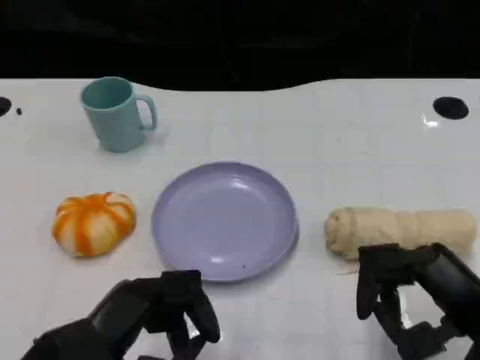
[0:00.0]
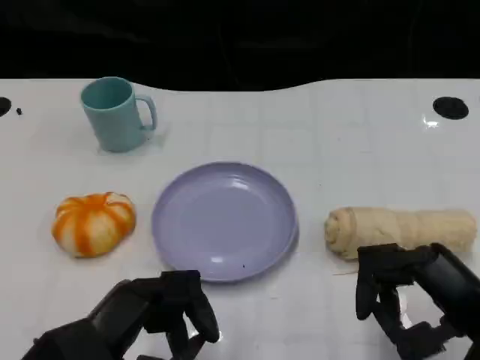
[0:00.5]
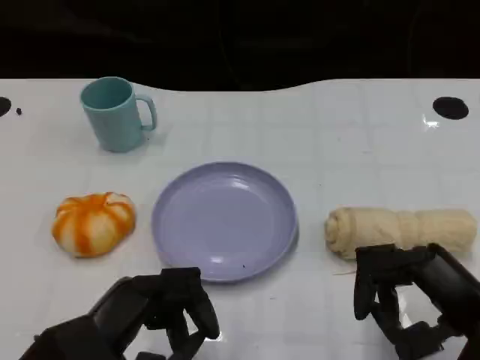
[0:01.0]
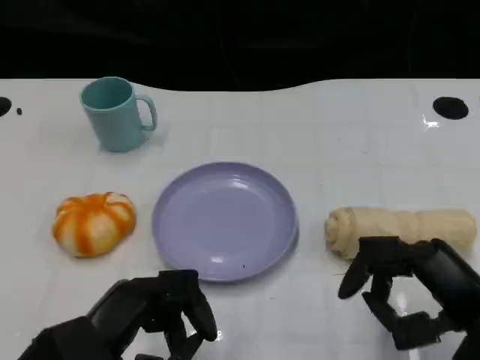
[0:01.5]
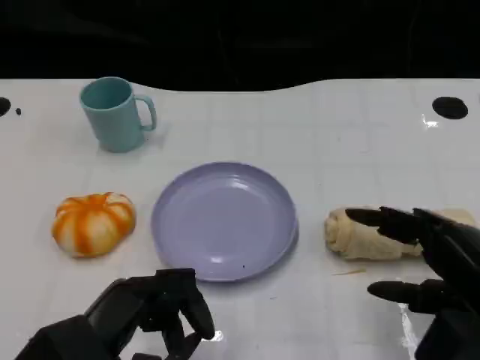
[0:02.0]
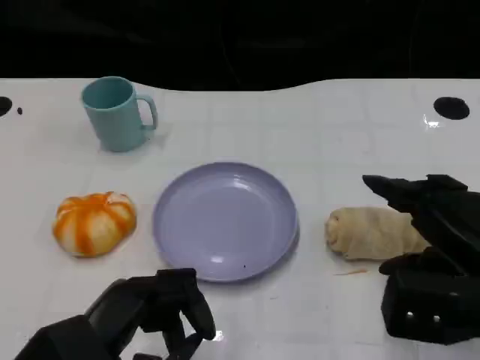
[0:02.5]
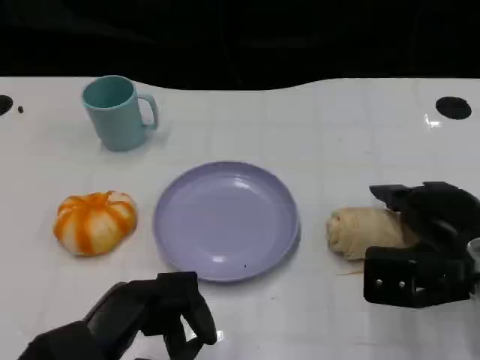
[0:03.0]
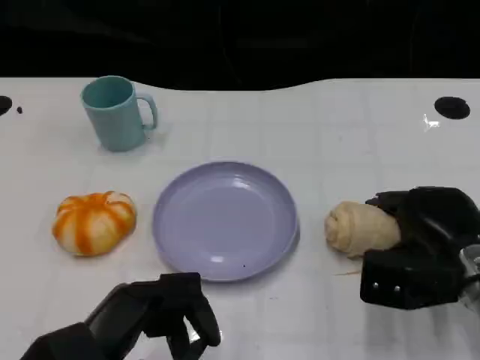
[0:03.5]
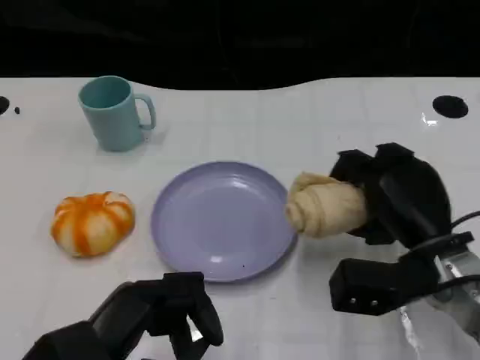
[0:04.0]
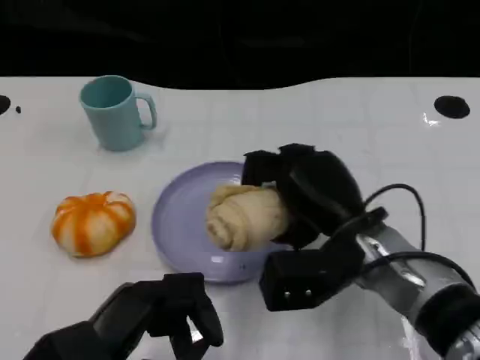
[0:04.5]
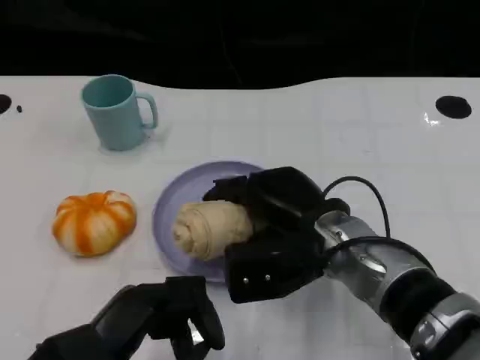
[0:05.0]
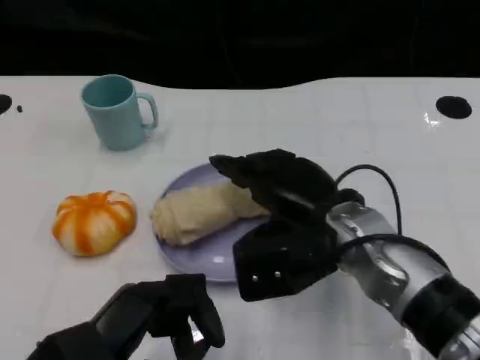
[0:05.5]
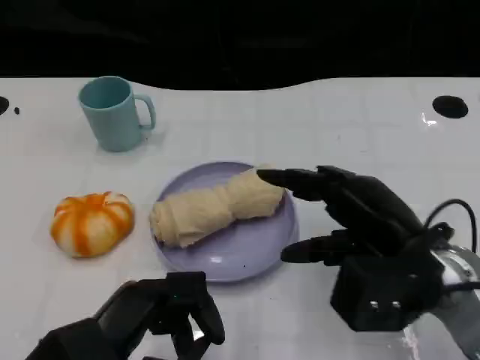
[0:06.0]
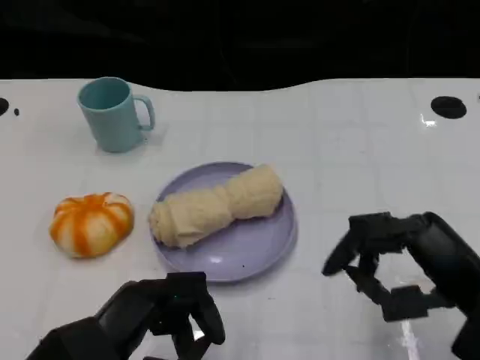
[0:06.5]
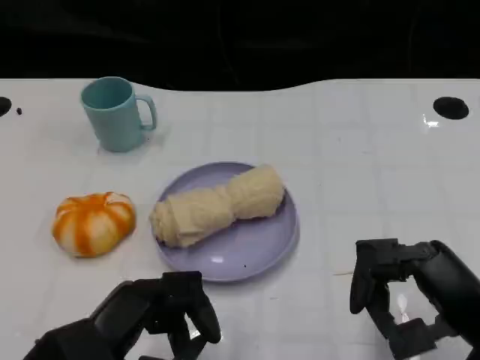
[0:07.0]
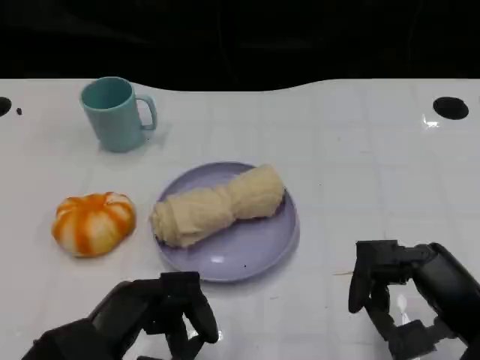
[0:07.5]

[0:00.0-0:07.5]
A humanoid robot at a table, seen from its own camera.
Task of the whole recording: Grasp the towel on the left side of the plate with the left hand and place it into the plate.
2.0 to 4.0 s: The right hand shifts approximately 10 cm forward and to the left.
4.0 to 5.5 s: The right hand is displaced to the left by about 10 cm.
5.5 to 7.5 s: The right hand shifts roughly 15 cm to the right and backward.

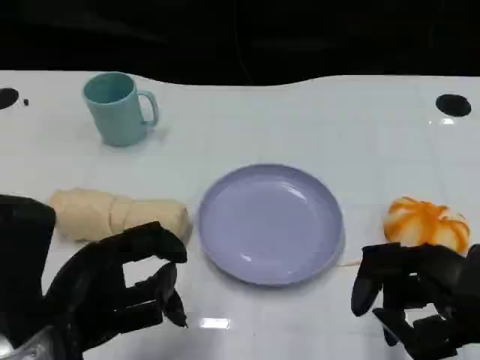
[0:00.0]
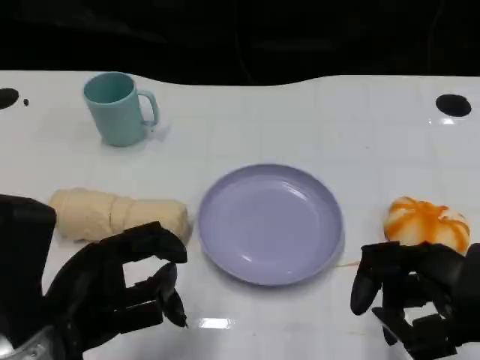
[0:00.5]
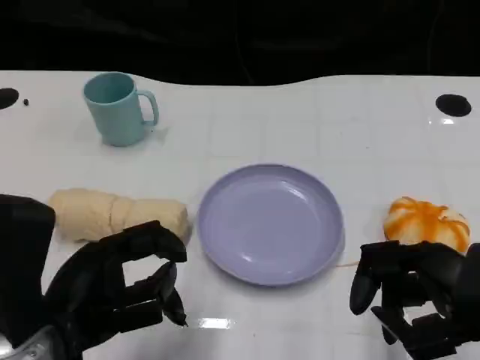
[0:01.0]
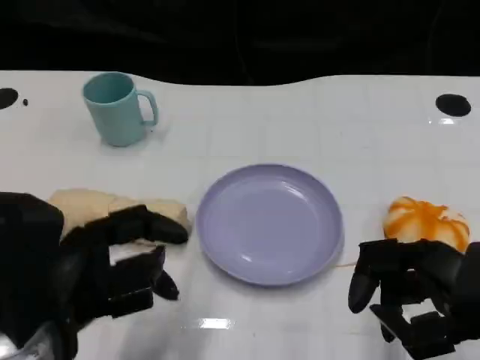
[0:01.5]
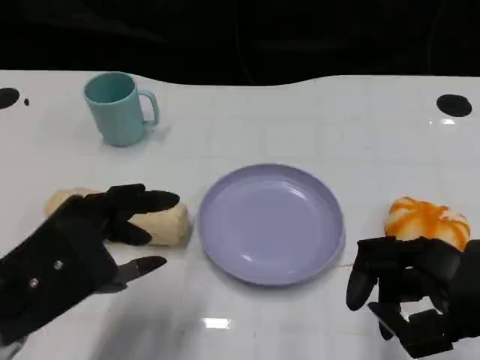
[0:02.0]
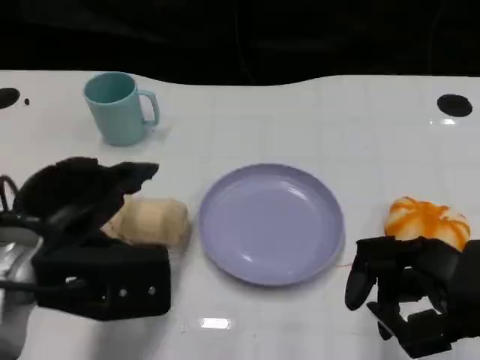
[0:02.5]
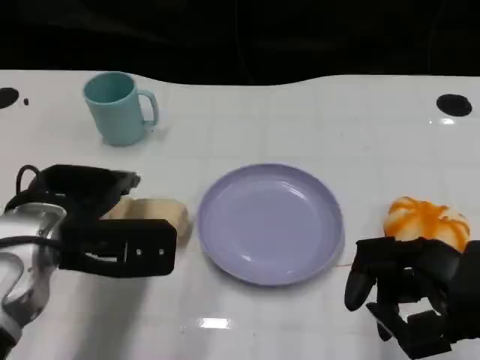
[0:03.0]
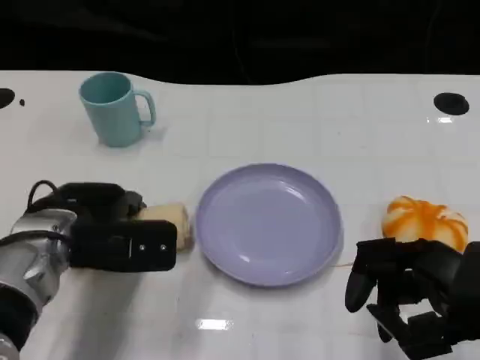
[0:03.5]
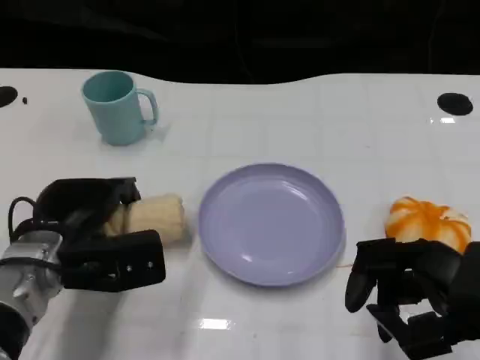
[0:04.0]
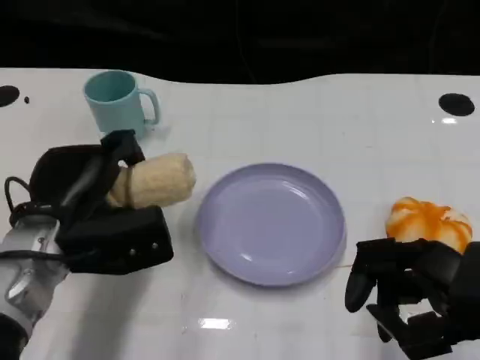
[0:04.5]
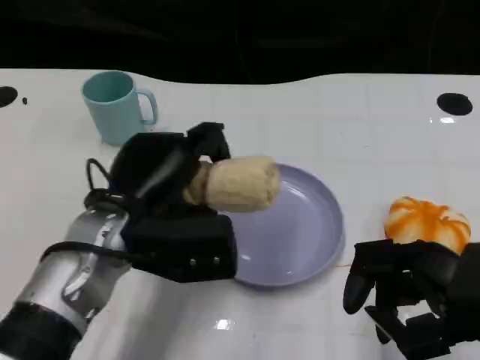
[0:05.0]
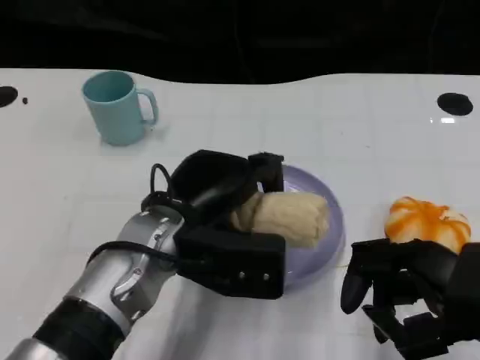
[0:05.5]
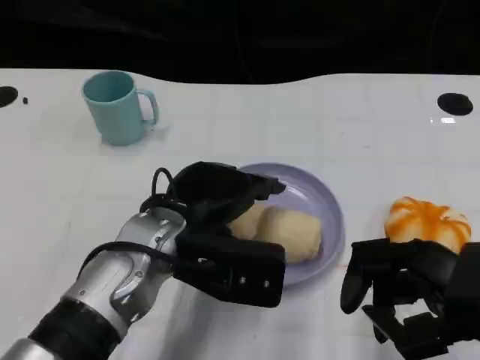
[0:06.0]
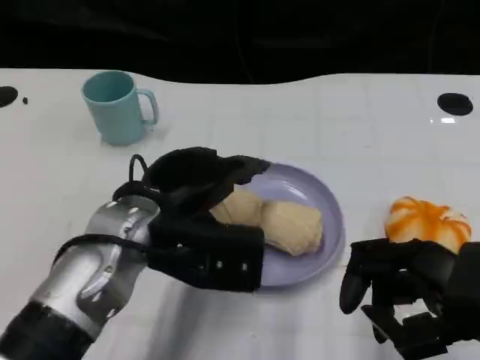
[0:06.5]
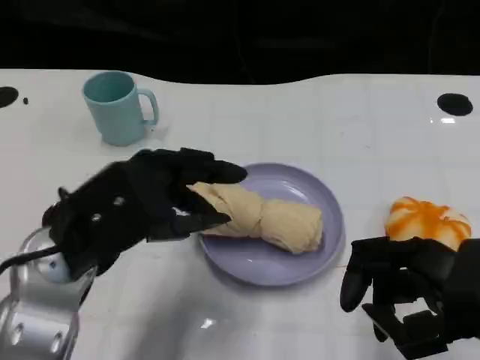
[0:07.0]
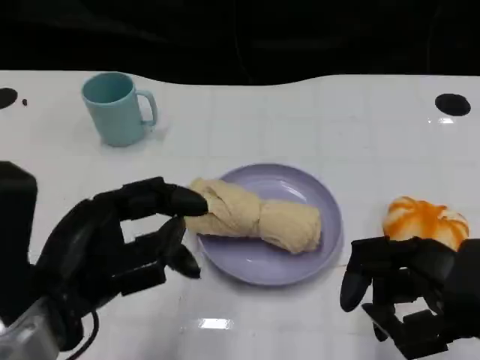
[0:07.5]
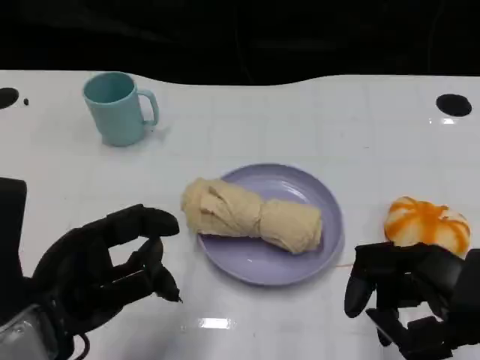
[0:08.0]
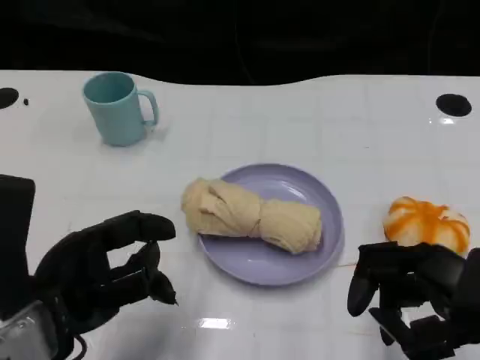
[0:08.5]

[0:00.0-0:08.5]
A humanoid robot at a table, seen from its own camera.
Task of the whole recording: Grasp the towel on the left side of the plate with the left hand and place it into the plate.
2.0 to 4.0 s: The left hand moves forward and downward, roughly 15 cm.
4.0 to 6.5 s: The left hand travels to the right and upward by approximately 10 cm.
6.5 to 8.5 s: The left hand travels backward and to the left by approximately 10 cm.

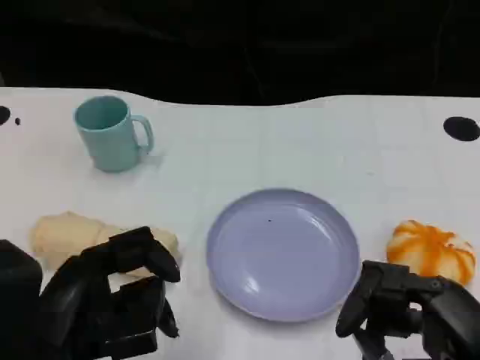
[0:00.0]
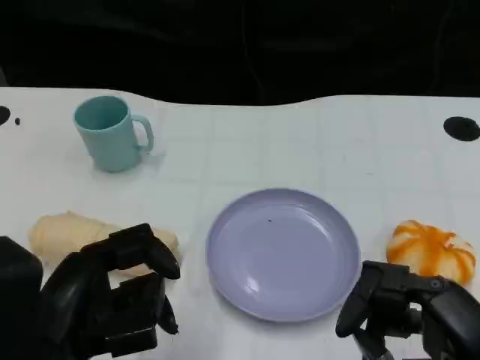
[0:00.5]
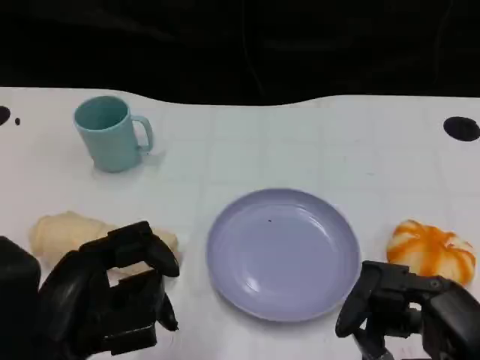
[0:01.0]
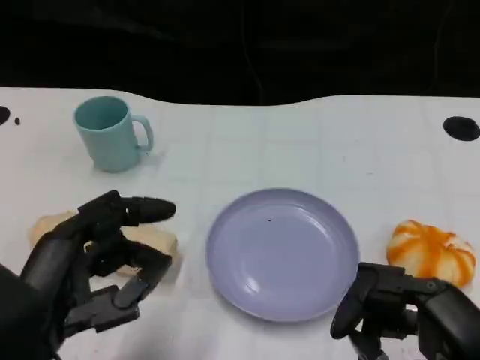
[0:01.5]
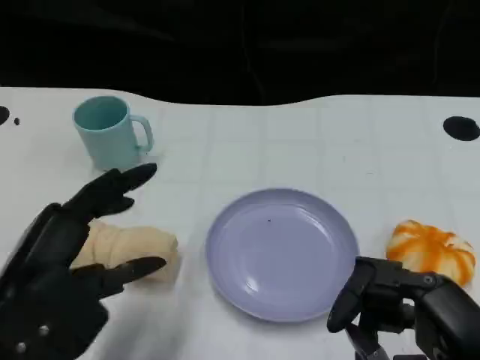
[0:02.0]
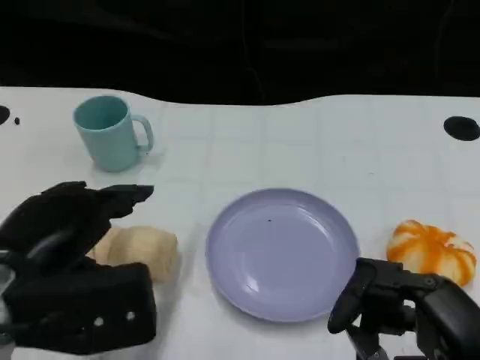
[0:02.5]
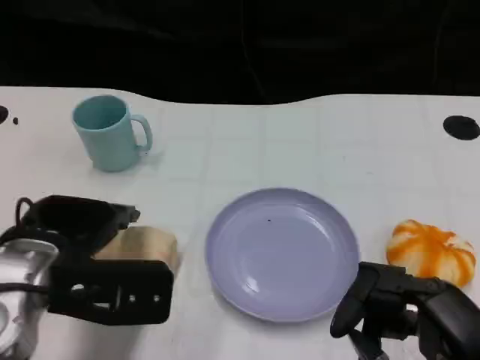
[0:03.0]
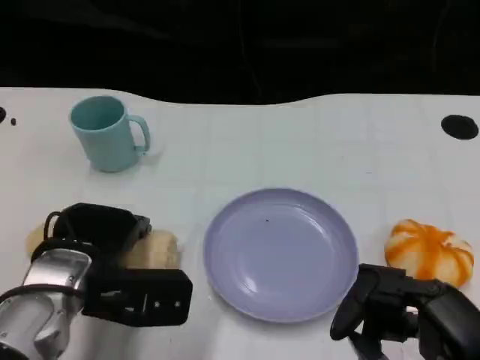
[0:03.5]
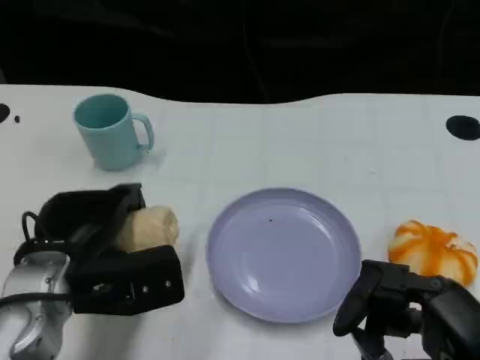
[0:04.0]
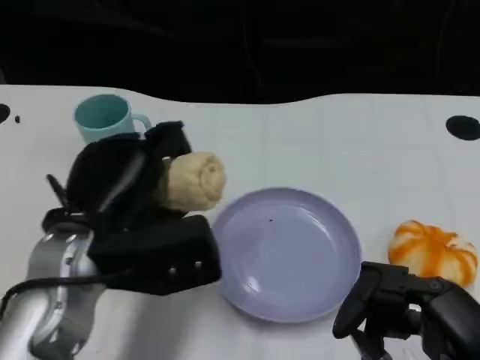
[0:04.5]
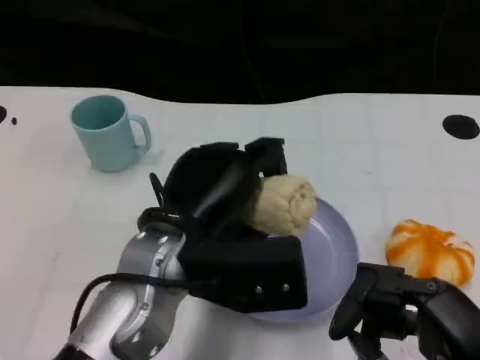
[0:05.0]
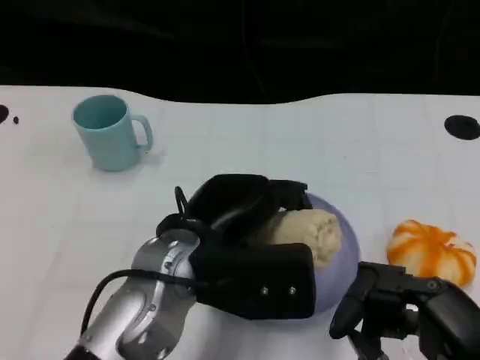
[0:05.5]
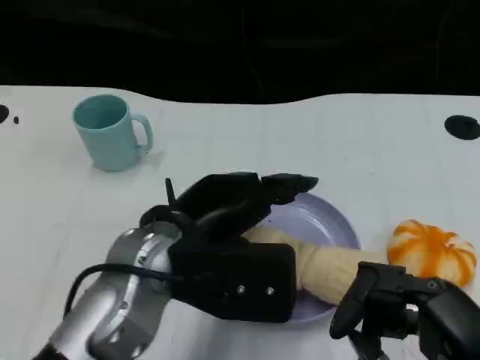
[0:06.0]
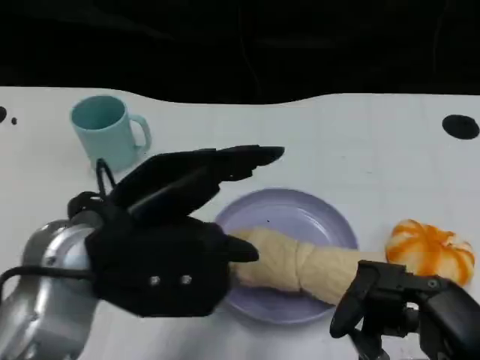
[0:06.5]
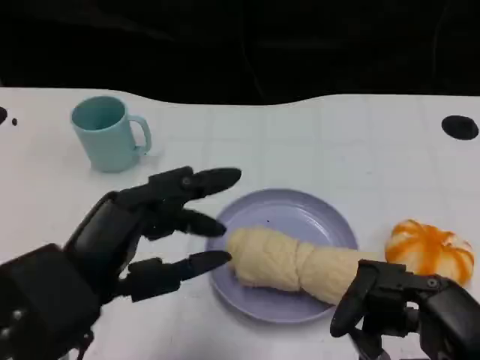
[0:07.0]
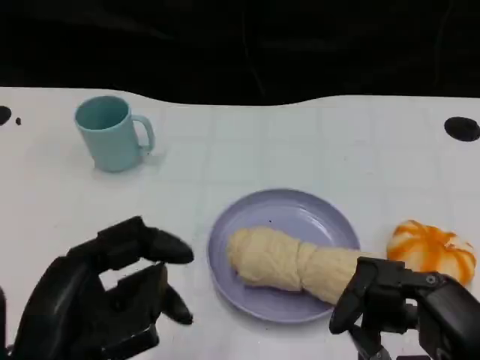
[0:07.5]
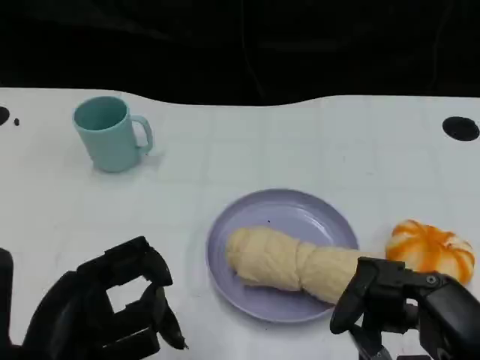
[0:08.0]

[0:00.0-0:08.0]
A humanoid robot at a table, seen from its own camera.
Task of the whole recording: Grasp the towel on the left side of the plate with the left hand and place it into the plate.
2.0 to 4.0 s: The left hand shifts roughly 10 cm forward and downward.
4.0 to 6.0 s: The left hand goes about 10 cm to the right and upward.
6.0 to 8.0 s: The left hand shifts roughly 15 cm backward and to the left.

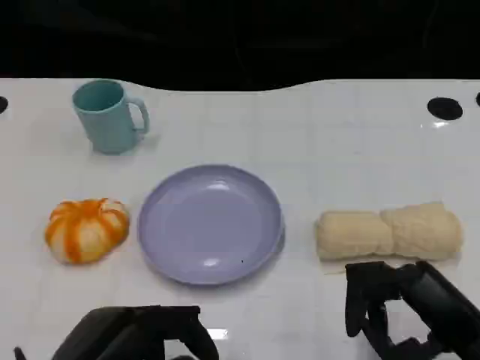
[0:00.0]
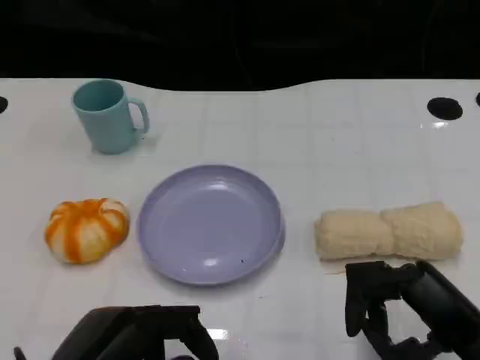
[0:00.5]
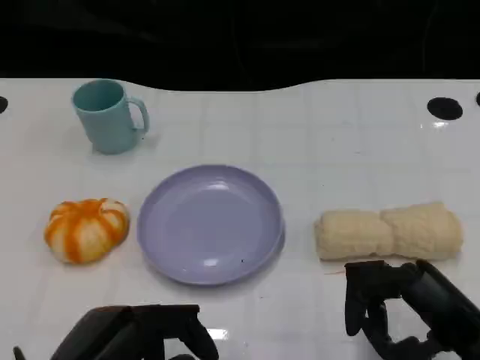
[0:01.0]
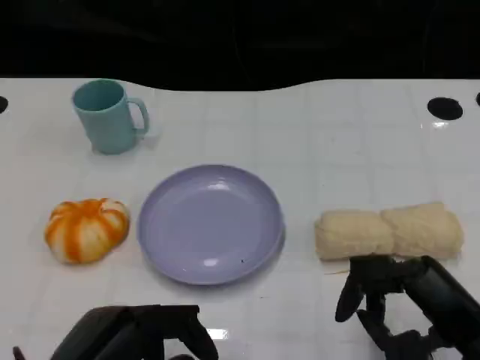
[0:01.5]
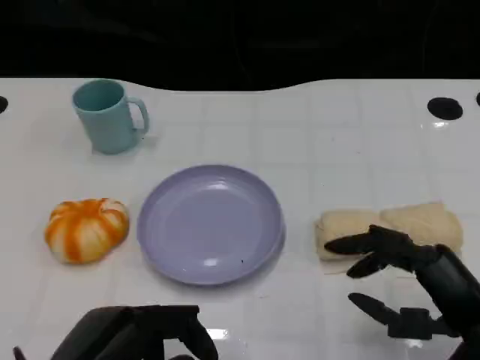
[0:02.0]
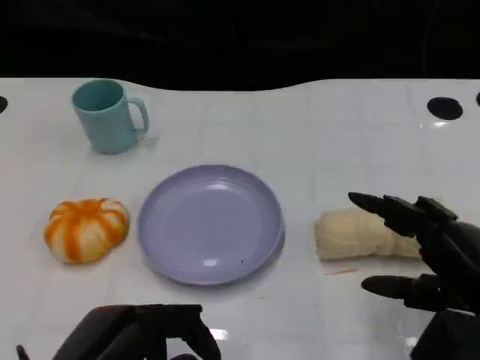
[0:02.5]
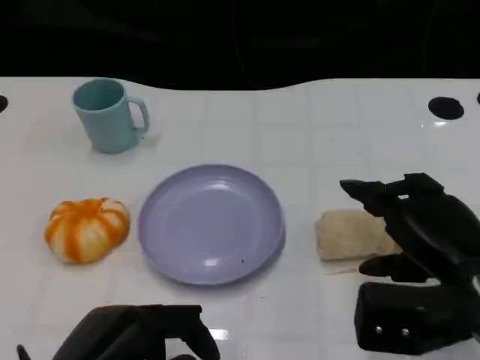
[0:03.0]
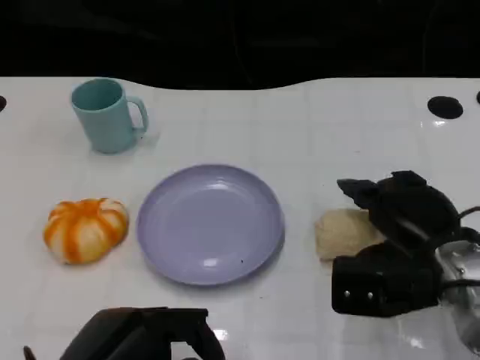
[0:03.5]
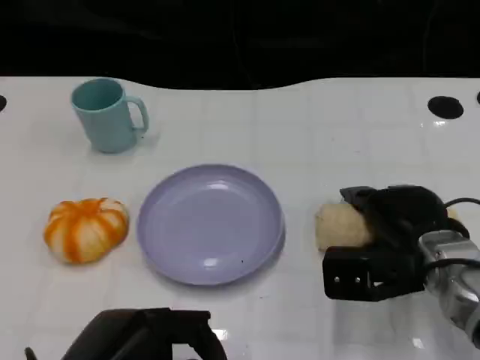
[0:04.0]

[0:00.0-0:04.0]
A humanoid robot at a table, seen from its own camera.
Task of the whole recording: Grasp the towel on the left side of the plate with the left hand and place it into the plate.
0.0 to 2.0 s: There are only small adjustments of the hands.
2.0 to 4.0 s: The right hand travels forward by about 10 cm.
